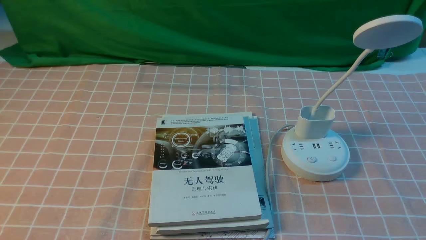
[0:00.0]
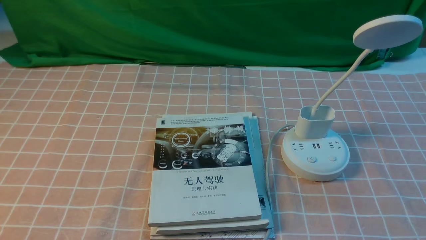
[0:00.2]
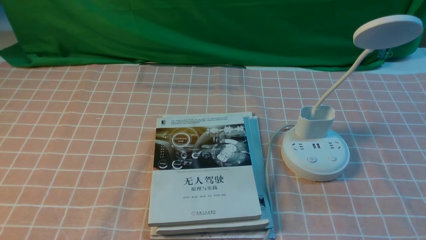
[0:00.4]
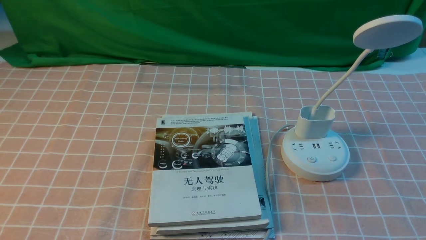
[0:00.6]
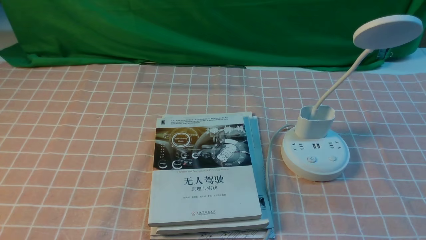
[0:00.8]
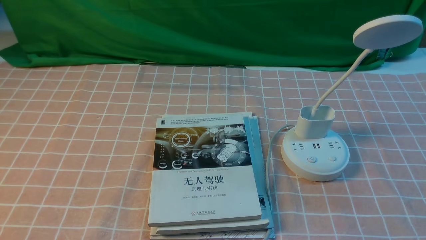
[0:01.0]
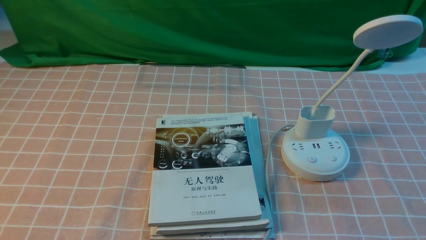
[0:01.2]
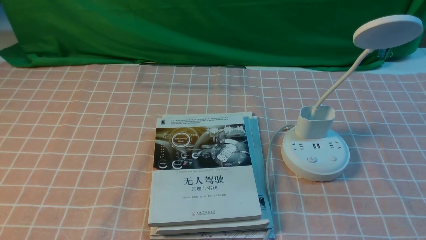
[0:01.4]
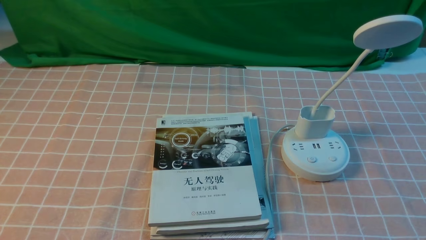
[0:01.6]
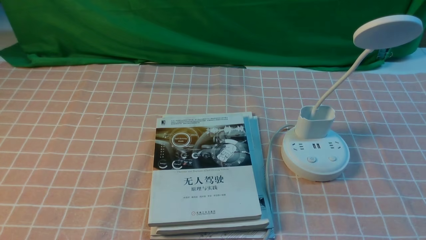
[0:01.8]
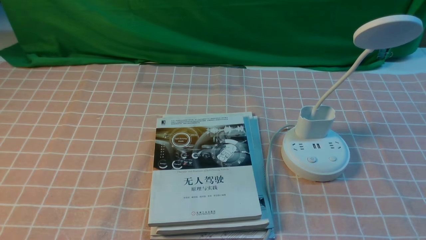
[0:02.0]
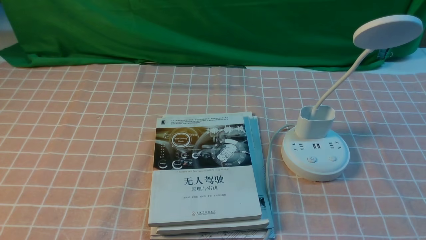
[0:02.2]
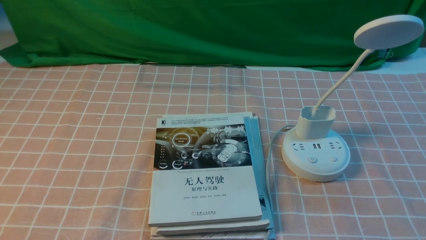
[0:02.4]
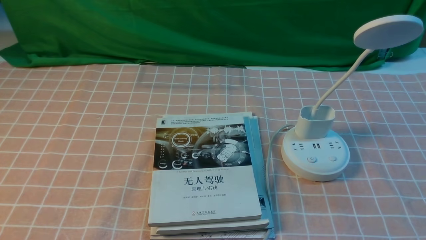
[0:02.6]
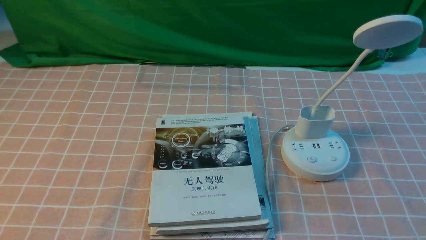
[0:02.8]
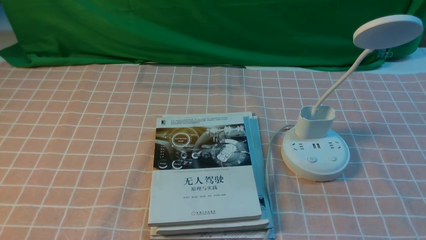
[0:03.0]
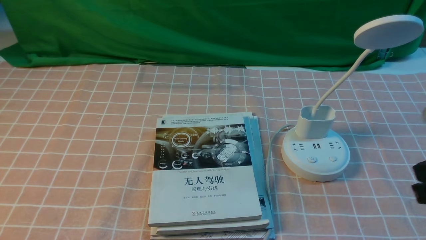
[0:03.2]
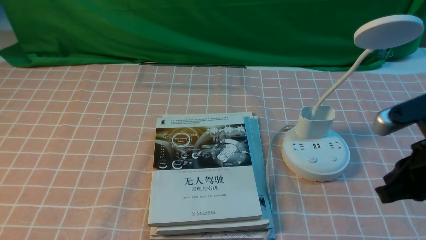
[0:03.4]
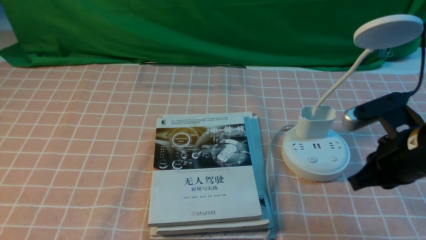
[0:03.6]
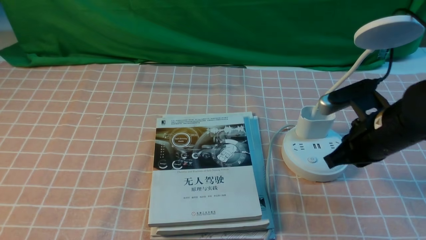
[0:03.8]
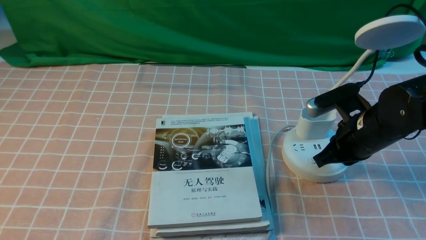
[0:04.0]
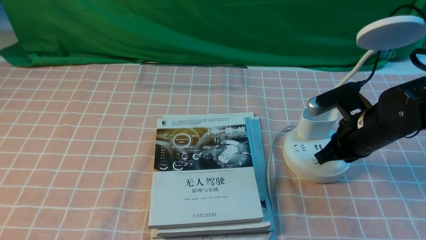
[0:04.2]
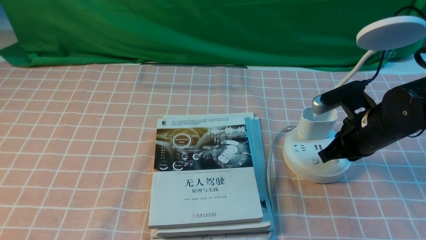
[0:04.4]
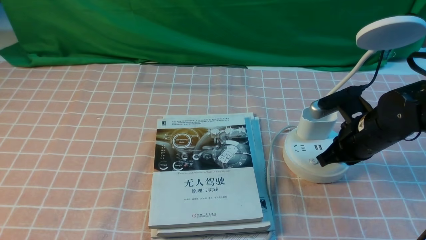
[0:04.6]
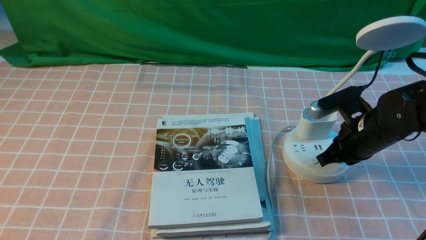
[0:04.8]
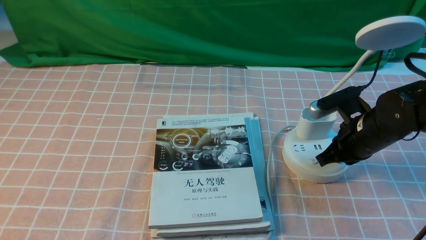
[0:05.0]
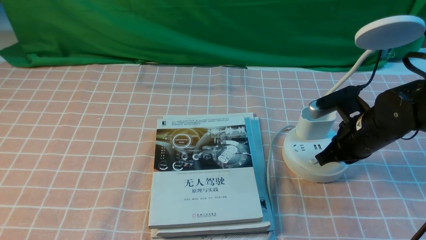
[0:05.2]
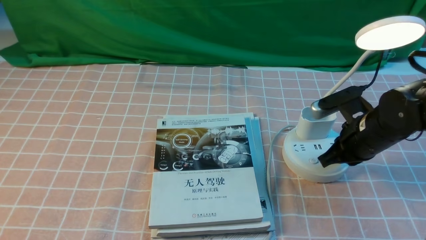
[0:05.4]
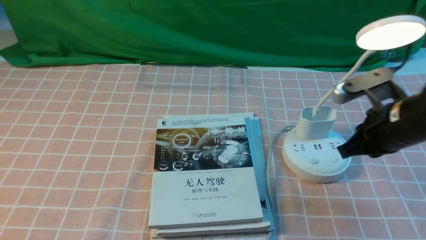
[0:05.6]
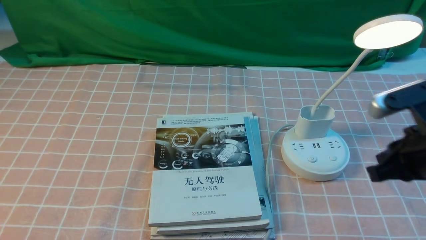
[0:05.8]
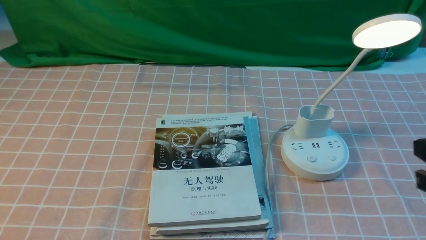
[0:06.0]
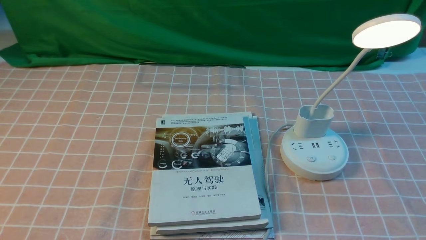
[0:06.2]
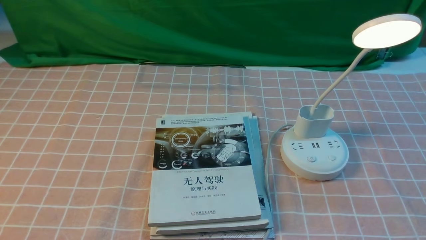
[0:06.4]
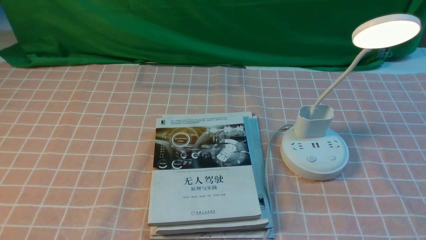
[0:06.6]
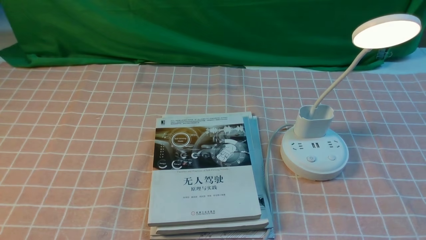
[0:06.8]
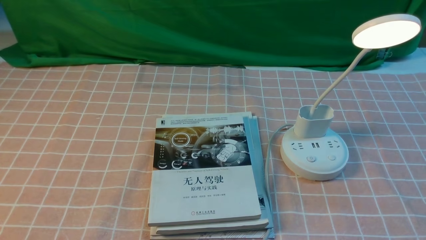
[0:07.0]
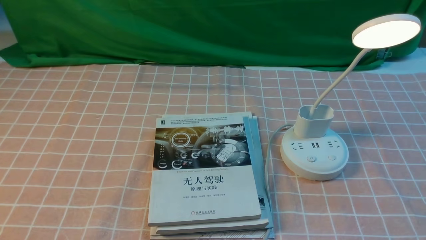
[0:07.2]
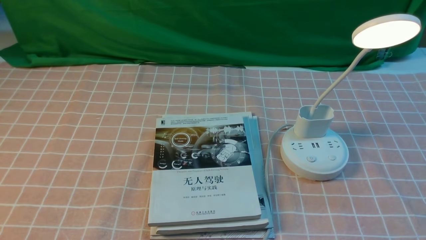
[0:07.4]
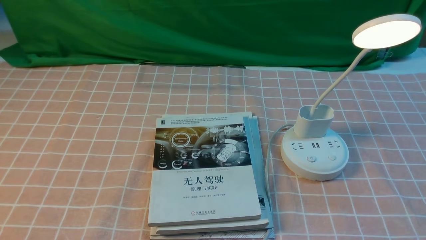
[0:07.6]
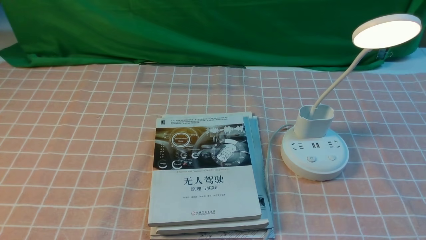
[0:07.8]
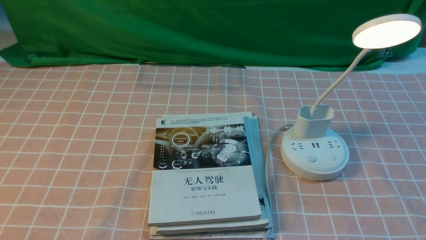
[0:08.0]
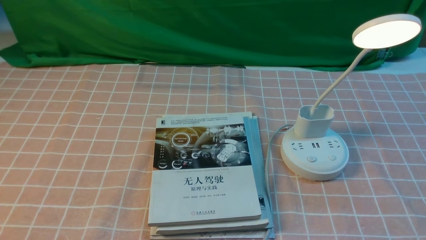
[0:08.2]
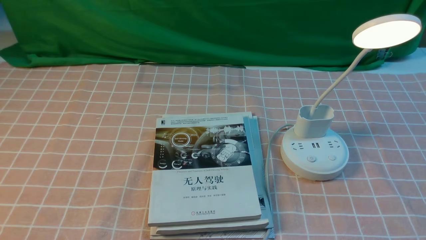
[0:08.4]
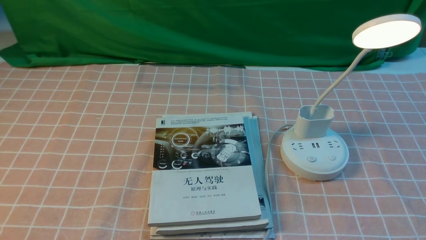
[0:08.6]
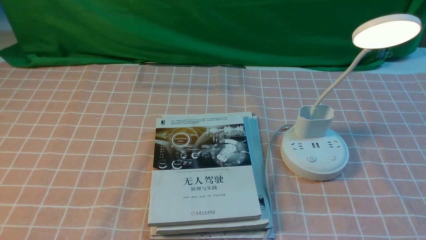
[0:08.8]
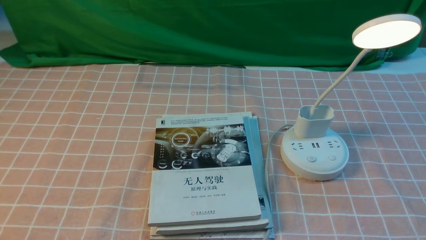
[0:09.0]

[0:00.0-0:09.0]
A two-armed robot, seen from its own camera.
Step, 0:00.0 to 0:05.6: use the right arm to press the button switch on the lamp holder.
0:03.0 to 0:04.4: The right gripper is displaced forward, downward and to the left by about 25 cm.
0:04.4 to 0:06.0: The right gripper moves backward and upward, roughly 20 cm.
